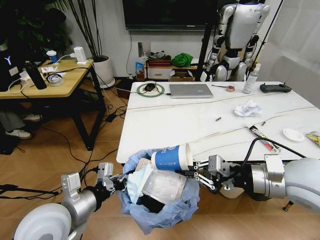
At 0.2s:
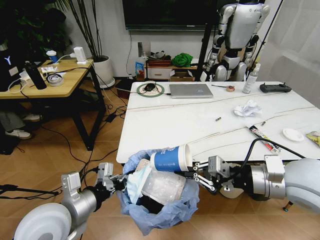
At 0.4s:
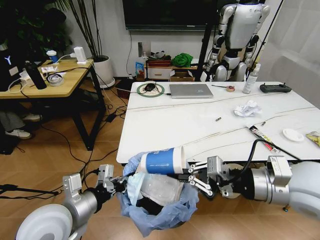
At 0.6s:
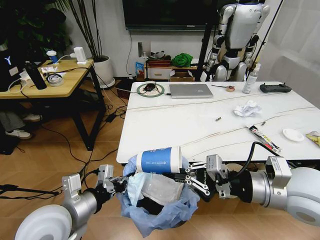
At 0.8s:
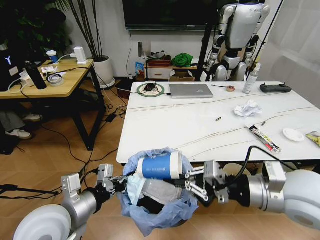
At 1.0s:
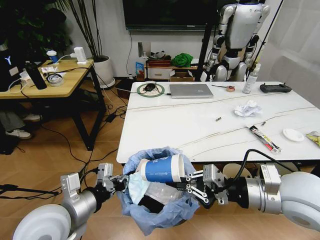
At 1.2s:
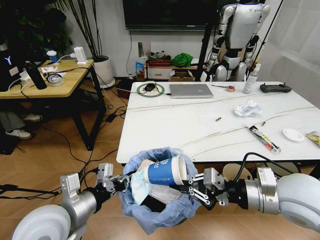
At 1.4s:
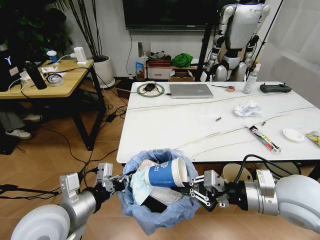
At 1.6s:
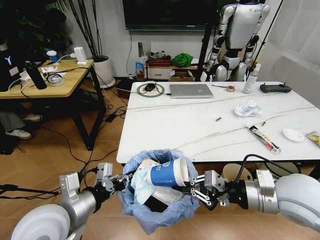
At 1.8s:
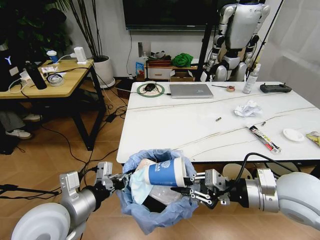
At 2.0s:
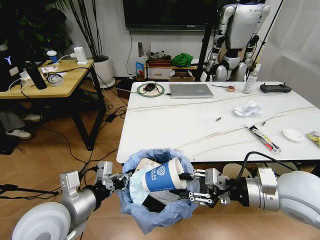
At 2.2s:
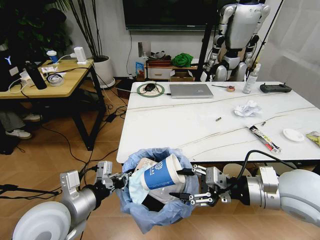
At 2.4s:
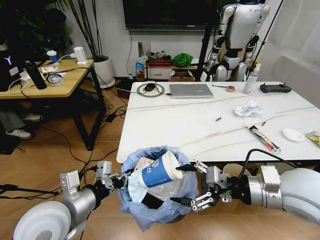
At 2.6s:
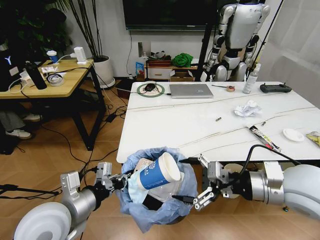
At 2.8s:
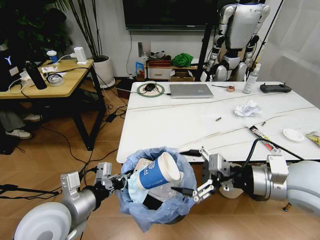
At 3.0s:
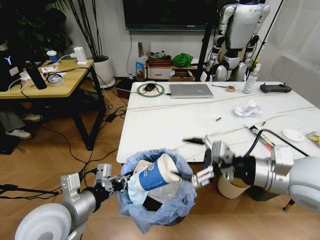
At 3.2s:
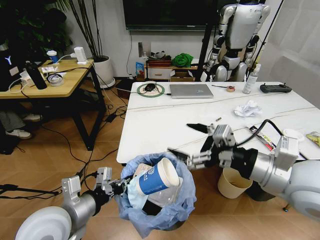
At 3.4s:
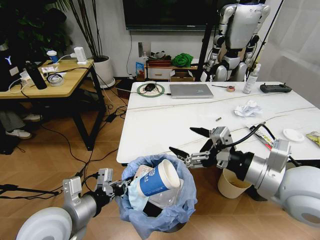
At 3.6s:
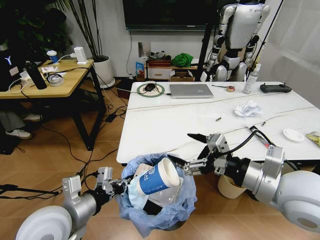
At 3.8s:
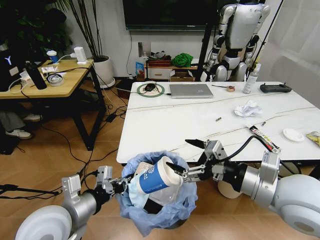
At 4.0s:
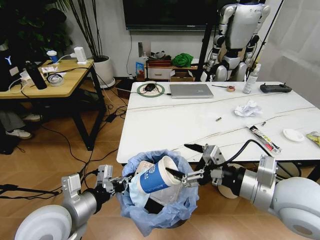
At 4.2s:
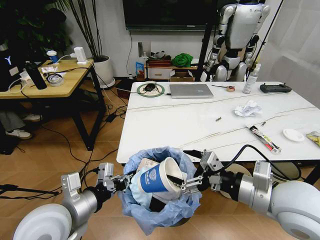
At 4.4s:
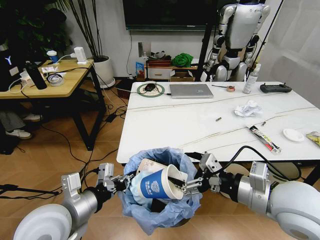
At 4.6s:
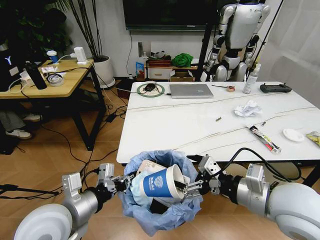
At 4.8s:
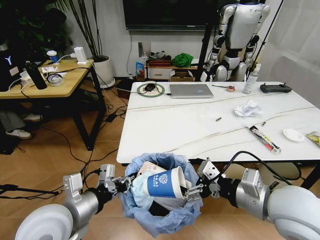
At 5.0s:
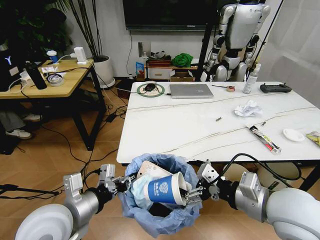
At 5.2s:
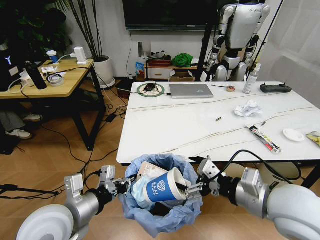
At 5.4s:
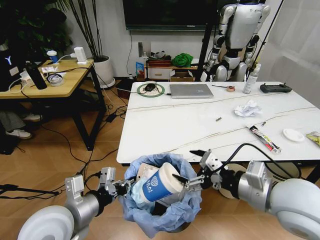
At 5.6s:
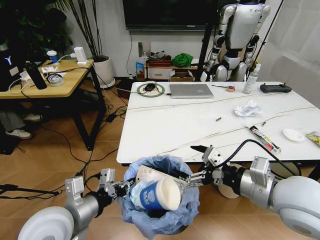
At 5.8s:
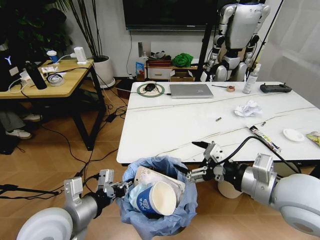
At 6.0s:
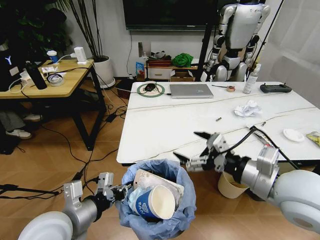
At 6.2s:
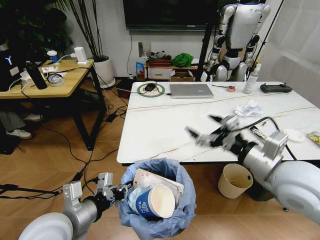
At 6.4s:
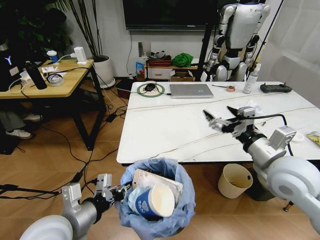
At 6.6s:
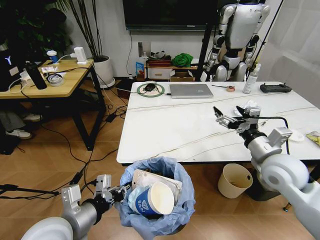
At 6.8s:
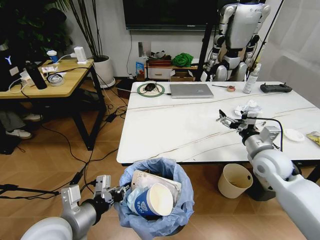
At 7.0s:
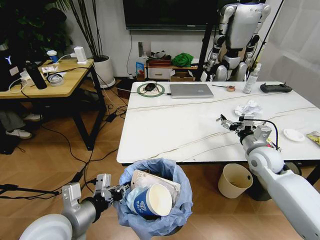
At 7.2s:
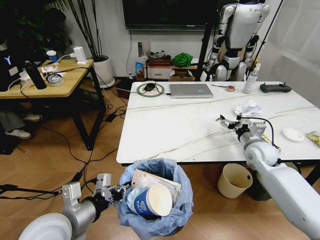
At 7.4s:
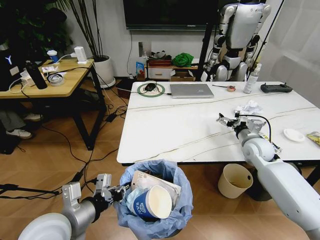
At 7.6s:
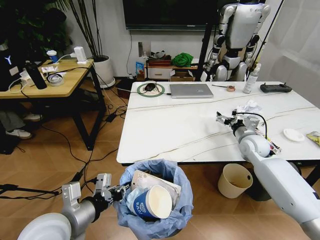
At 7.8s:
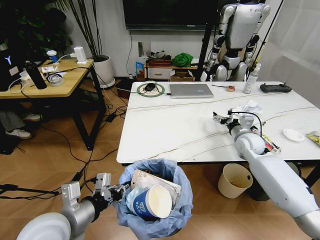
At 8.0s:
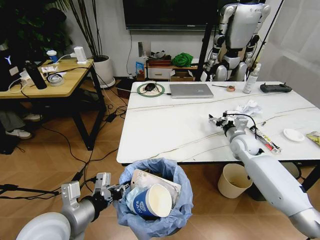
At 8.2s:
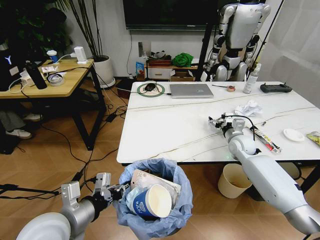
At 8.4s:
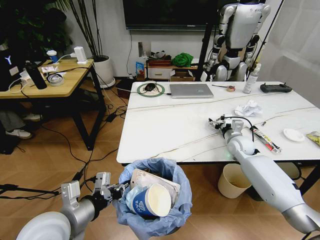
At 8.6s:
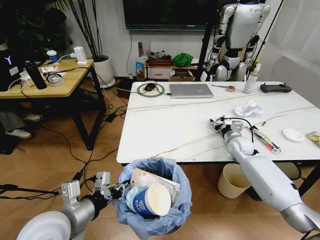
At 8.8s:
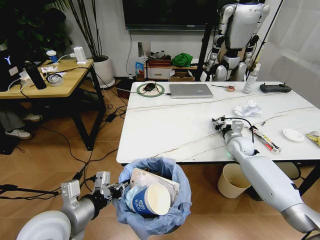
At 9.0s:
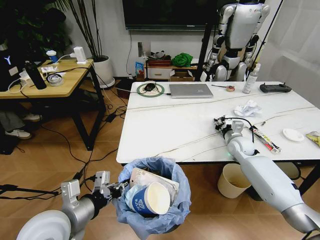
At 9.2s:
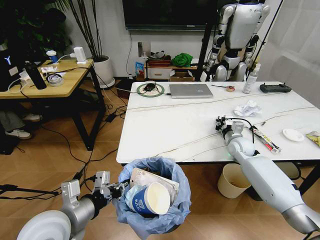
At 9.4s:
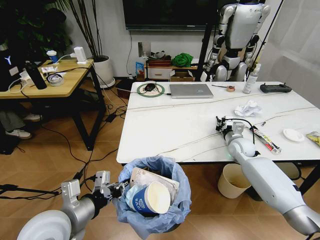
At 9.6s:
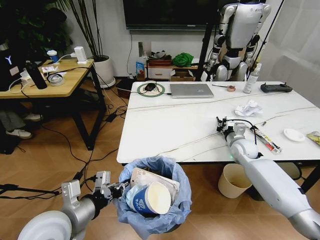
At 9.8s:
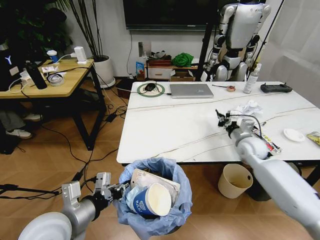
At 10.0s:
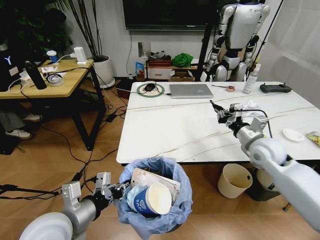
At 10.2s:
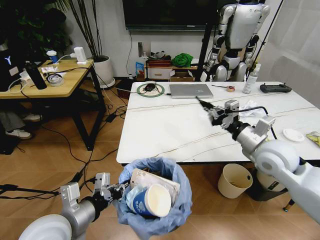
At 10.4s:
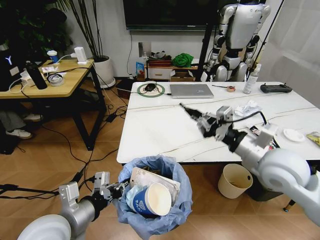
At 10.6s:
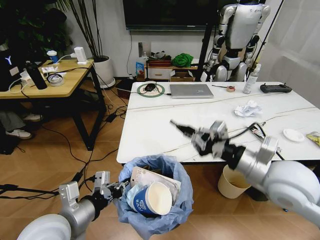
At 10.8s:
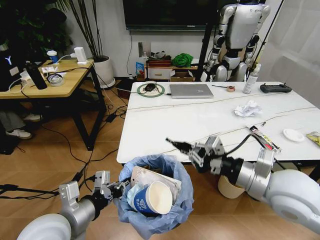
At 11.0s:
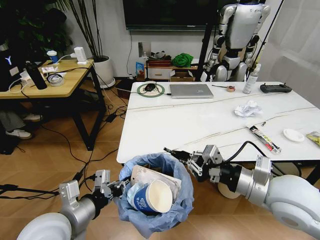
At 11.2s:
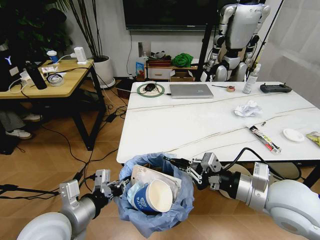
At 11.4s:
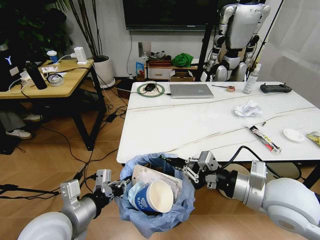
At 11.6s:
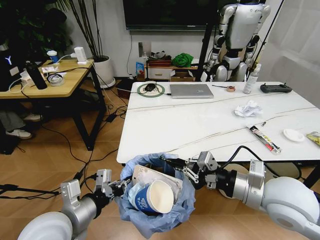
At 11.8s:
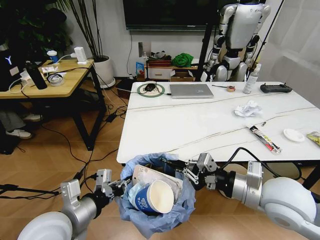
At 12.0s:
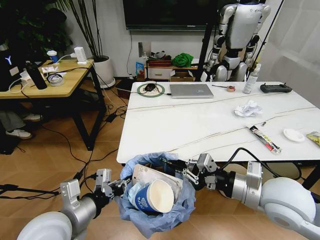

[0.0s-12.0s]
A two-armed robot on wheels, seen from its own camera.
Task of the whole recording: Pick up the trash bin and place the trash from the table into it.
0.0s to 1.6s: The grippers stay close to where they were, moving slightly.
1.6s to 3.0s: The right gripper shifts about 5 cm upward, and opens.
3.0s to 4.4s: The right gripper changes place by approximately 5 cm.
4.4s to 6.0s: The grippers stay close to where they were, moving slightly.
6.0s to 7.6s: The right gripper heads forward and downward, covering approximately 30 cm.
7.6s to 9.0s: The right gripper changes place by approximately 5 cm, and closes.
9.0s to 10.4s: The right gripper heads backward and upward, covering about 30 cm.
10.4s to 12.0s: The right gripper heads backward, covering roughly 5 cm.

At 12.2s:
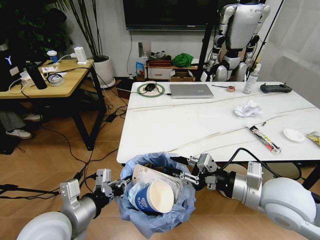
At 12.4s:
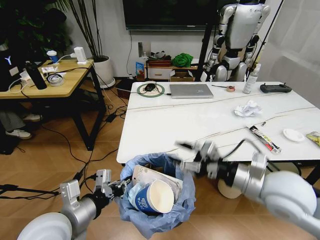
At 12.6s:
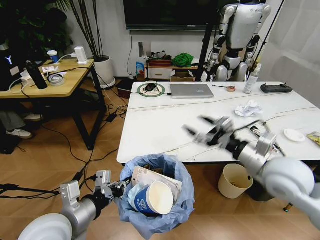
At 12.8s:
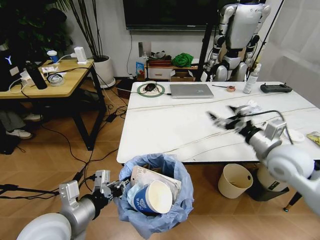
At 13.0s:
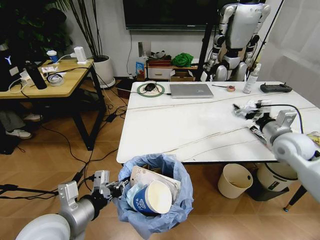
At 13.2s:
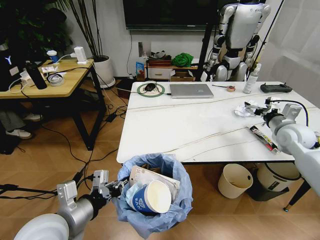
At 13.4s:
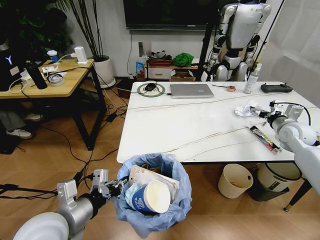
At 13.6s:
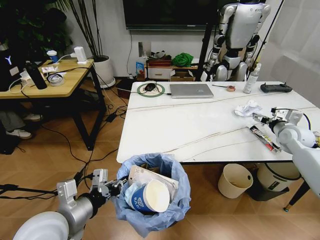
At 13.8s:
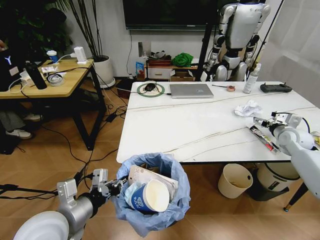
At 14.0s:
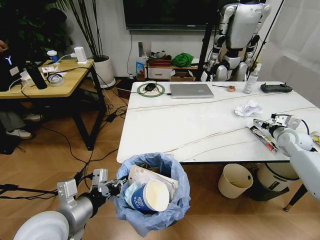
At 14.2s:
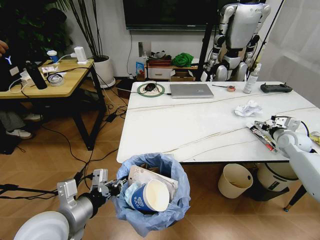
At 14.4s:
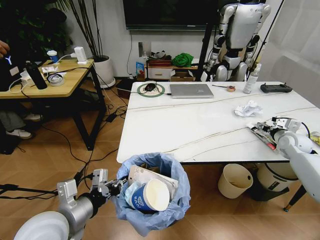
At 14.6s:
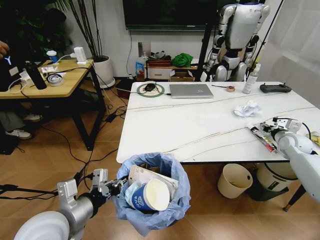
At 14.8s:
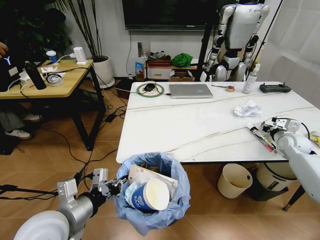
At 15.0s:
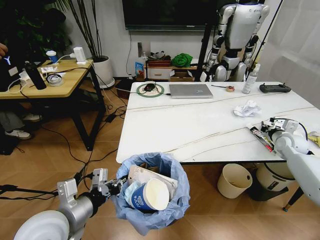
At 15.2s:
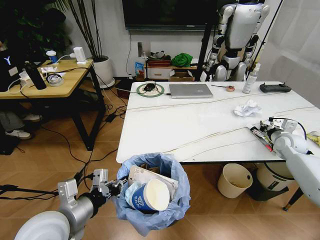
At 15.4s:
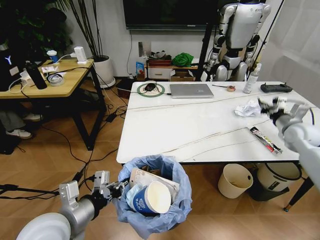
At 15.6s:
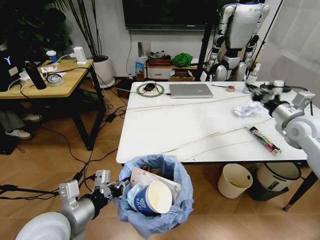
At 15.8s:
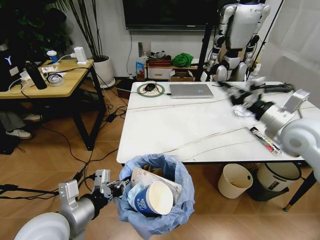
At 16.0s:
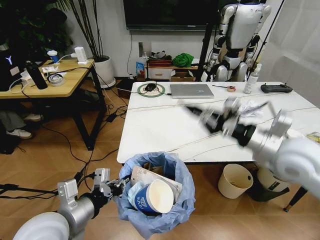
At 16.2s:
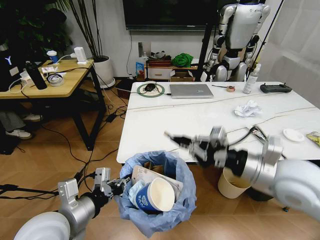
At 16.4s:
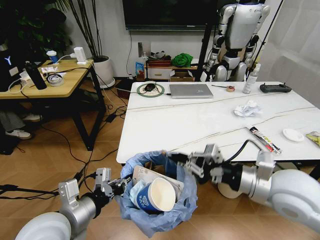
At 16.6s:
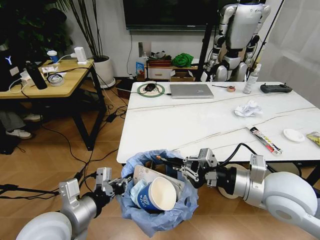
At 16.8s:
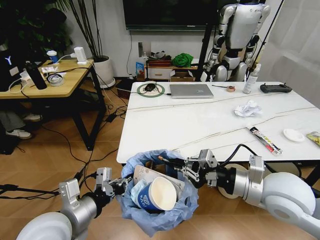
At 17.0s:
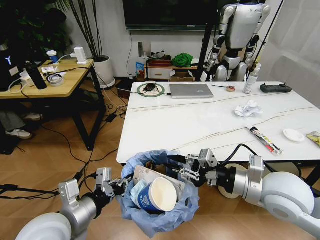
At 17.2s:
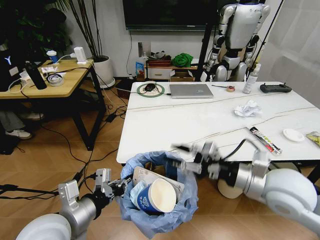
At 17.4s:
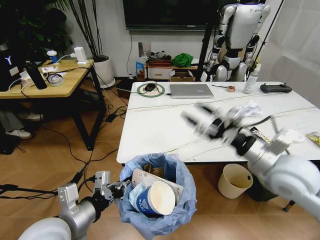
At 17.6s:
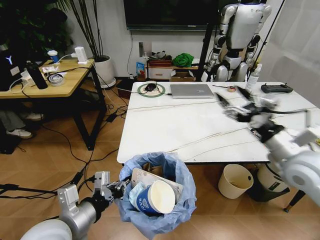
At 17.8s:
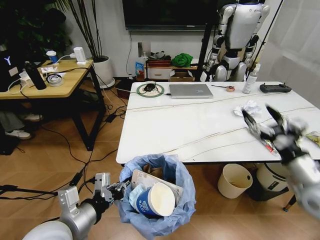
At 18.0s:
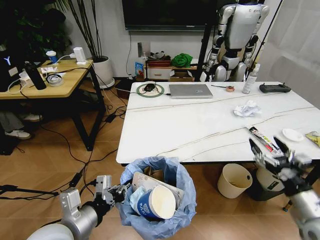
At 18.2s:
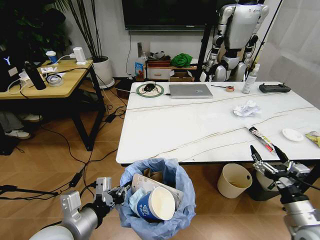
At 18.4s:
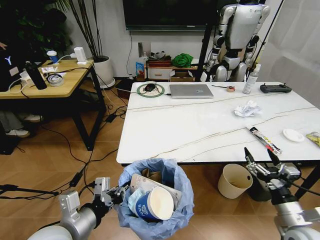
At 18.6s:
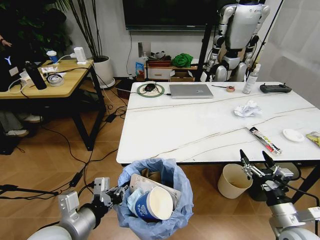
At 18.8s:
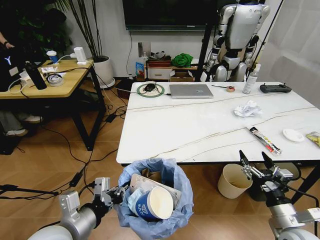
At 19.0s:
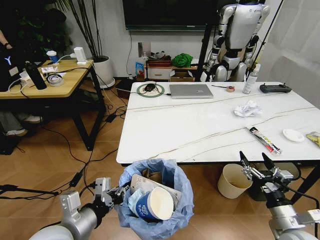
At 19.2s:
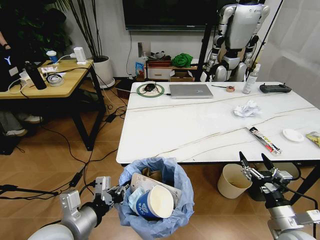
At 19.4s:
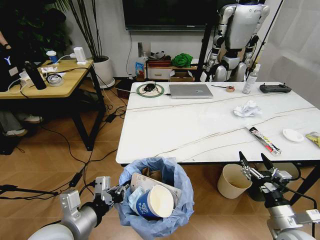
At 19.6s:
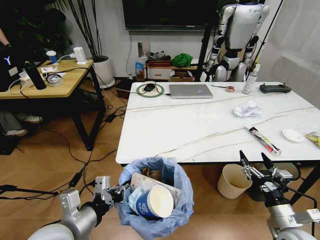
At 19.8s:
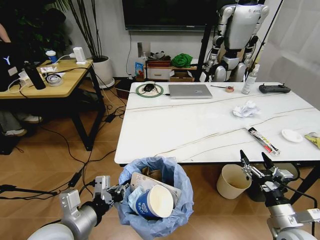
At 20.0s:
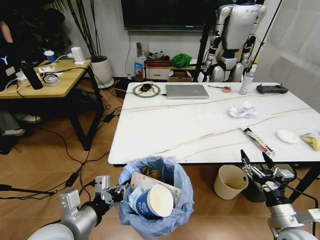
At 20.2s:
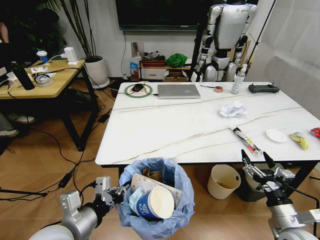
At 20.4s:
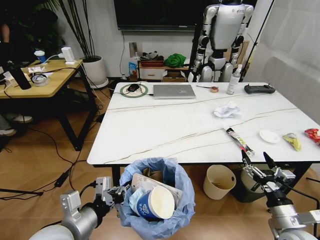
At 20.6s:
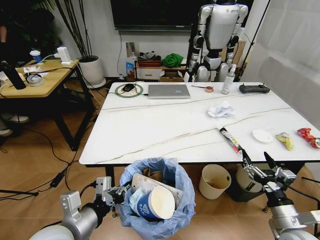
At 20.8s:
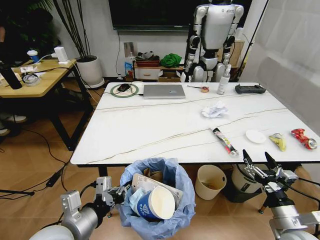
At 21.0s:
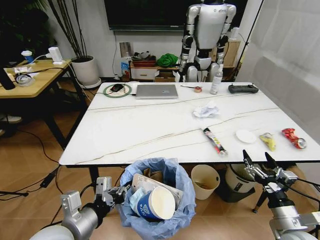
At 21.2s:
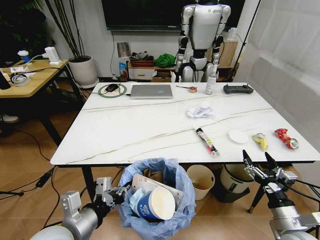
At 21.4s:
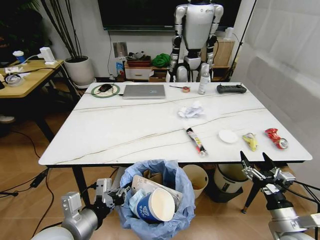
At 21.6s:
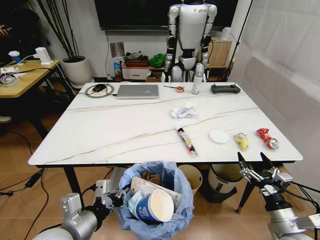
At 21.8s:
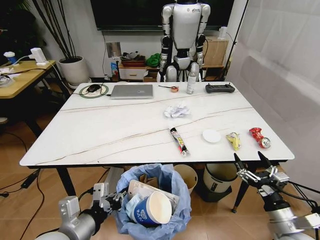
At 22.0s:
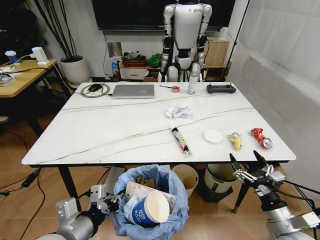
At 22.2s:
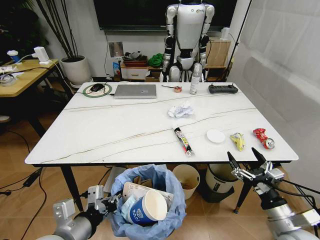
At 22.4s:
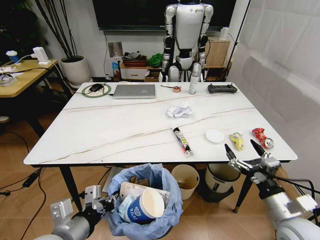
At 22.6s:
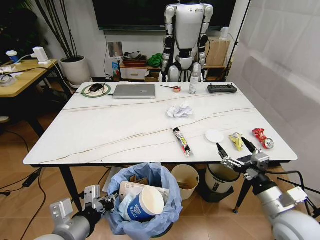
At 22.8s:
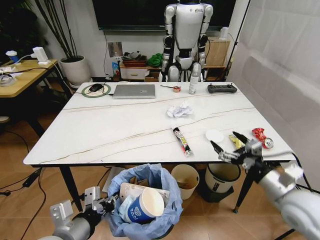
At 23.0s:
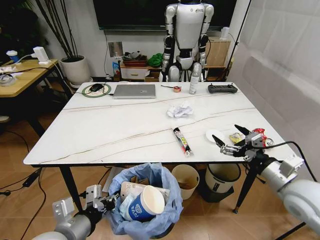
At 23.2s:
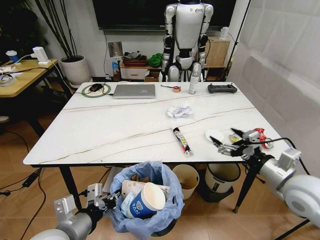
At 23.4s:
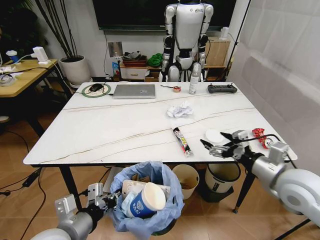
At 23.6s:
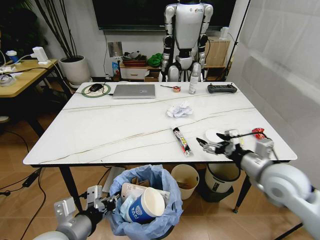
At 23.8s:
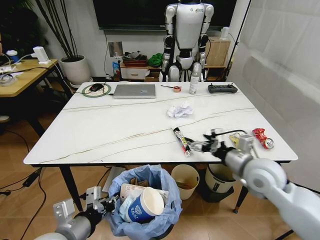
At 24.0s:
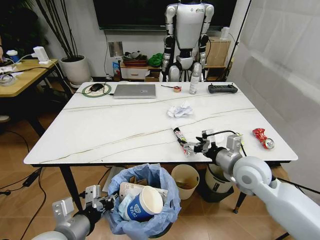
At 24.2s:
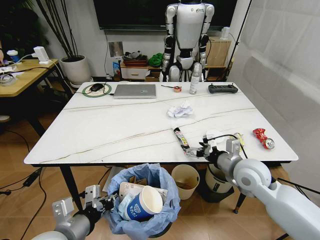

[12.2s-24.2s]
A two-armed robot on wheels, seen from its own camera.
Task of the whole recording: Pick up the trash bin and place the trash from the table into it.
12.2s to 13.8s: The right gripper goes about 35 cm forward and to the right, and opens its fingers.
13.8s to 15.2s: The right gripper closes.
15.2s to 16.6s: The right gripper is displaced to the left, backward and upward by about 35 cm.
16.6s to 18.2s: The right gripper travels downward, to the right and backward by about 20 cm, and opens up.
18.2s to 19.8s: The grippers stay close to where they were, moving slightly.
21.2s to 22.6s: The right gripper heads upward, covering roughly 5 cm.
22.6s to 24.2s: The right gripper is displaced forward and to the left by approximately 15 cm.
